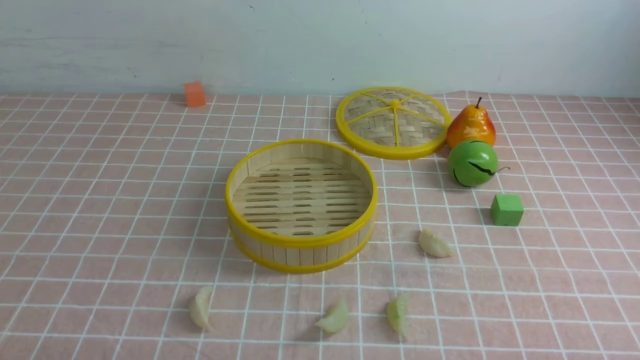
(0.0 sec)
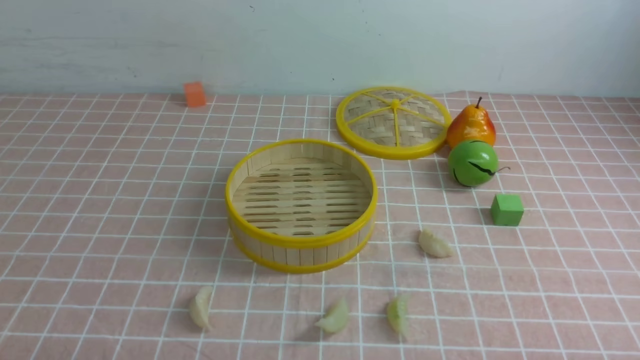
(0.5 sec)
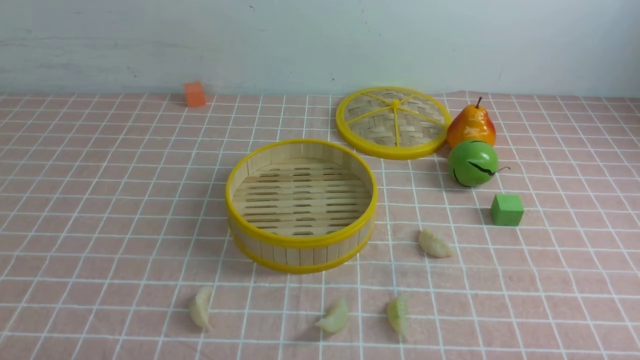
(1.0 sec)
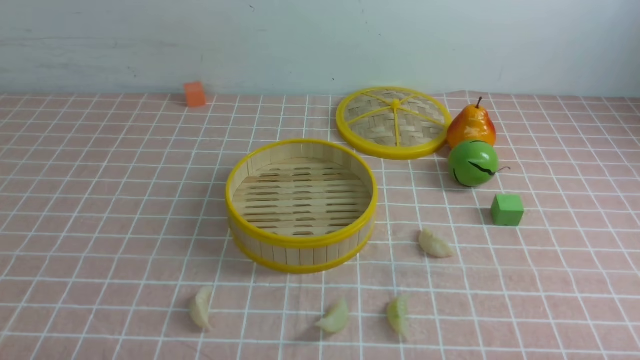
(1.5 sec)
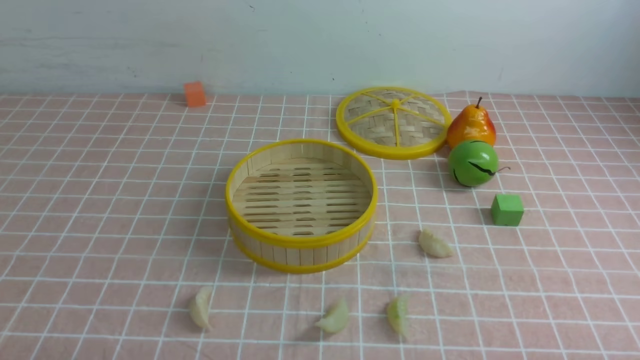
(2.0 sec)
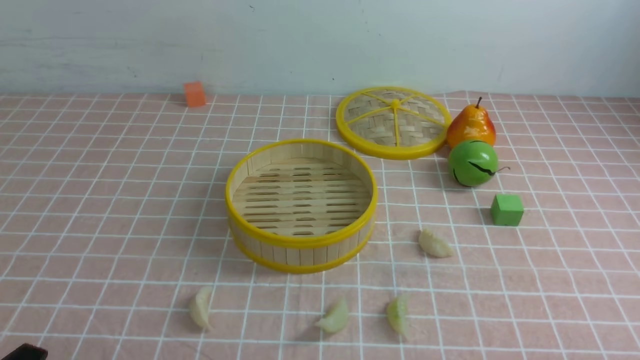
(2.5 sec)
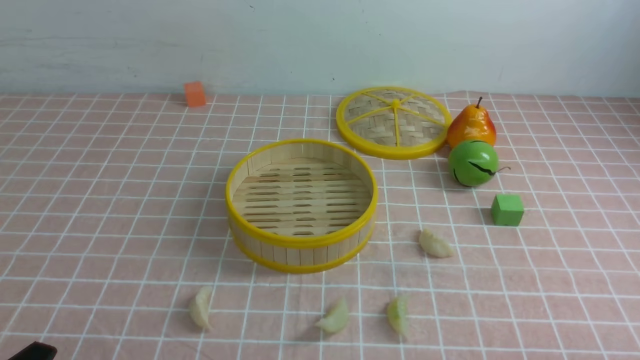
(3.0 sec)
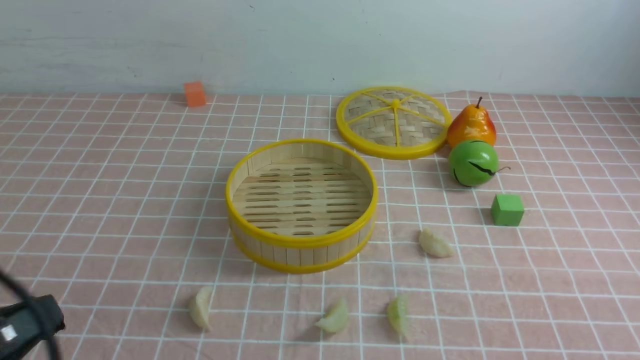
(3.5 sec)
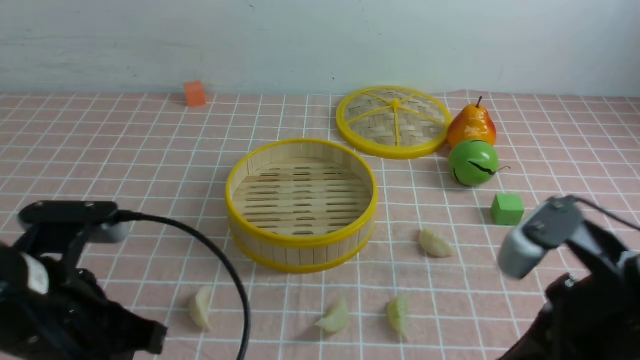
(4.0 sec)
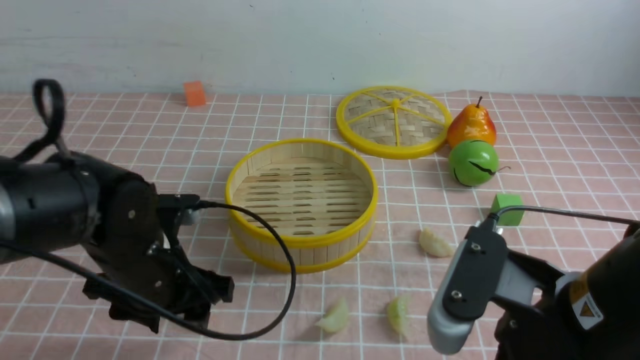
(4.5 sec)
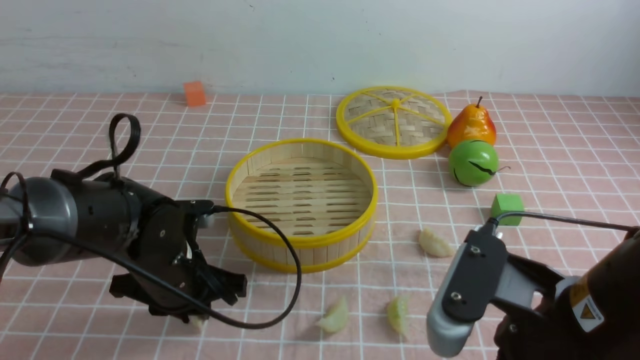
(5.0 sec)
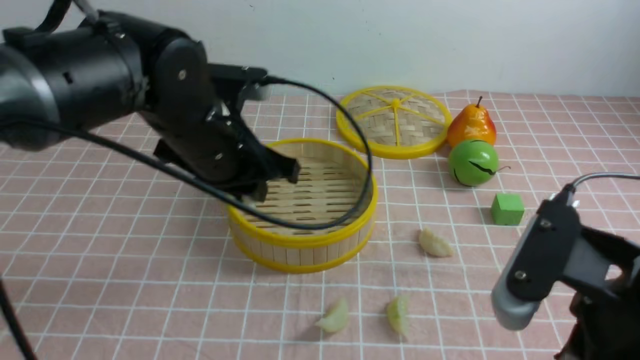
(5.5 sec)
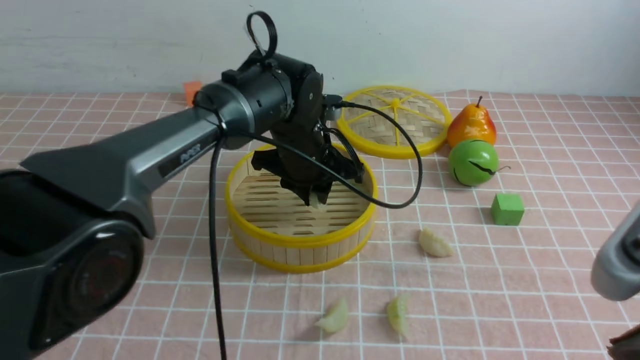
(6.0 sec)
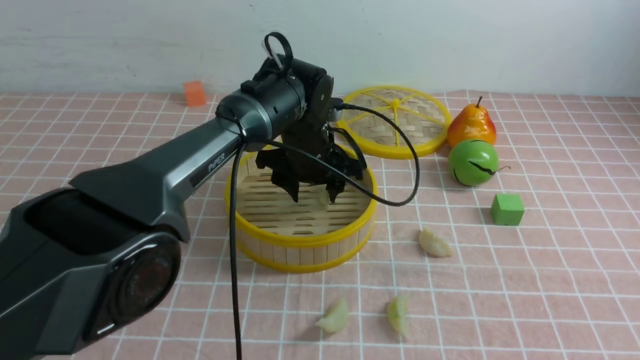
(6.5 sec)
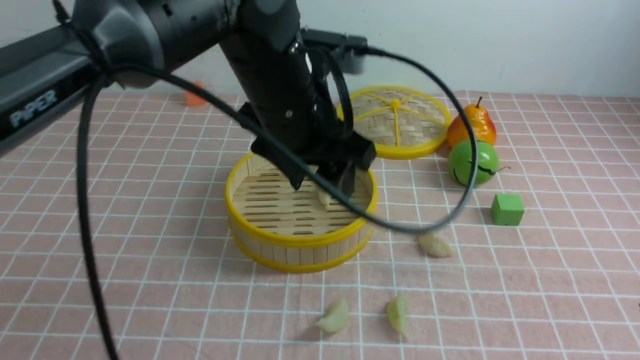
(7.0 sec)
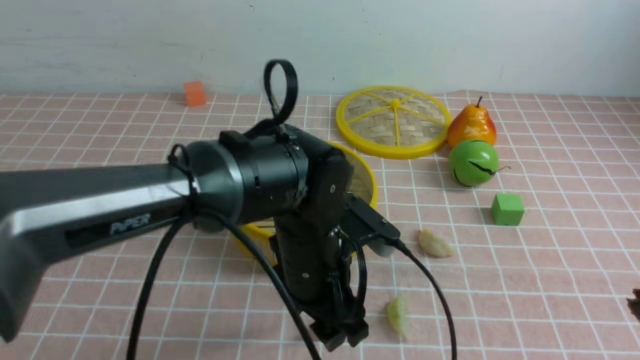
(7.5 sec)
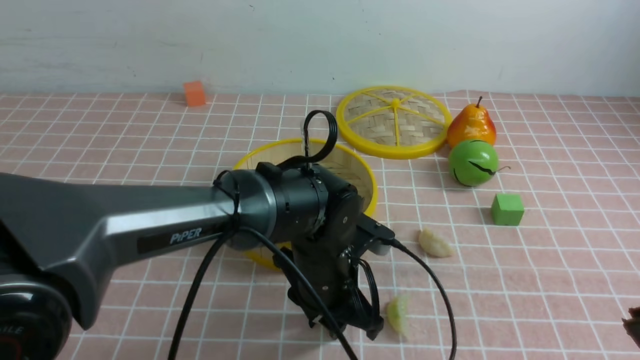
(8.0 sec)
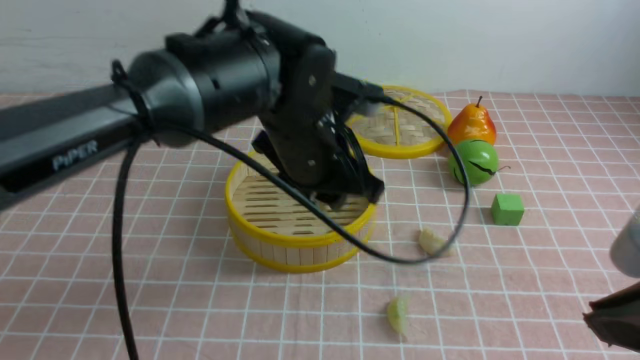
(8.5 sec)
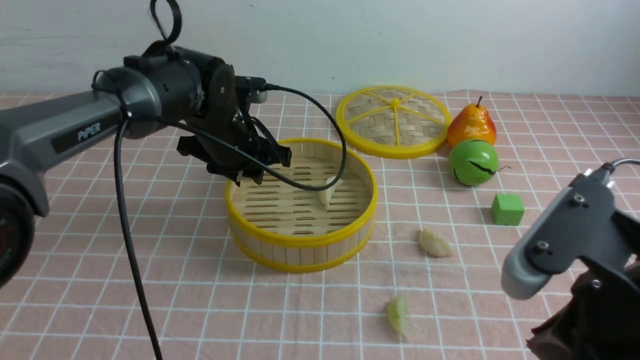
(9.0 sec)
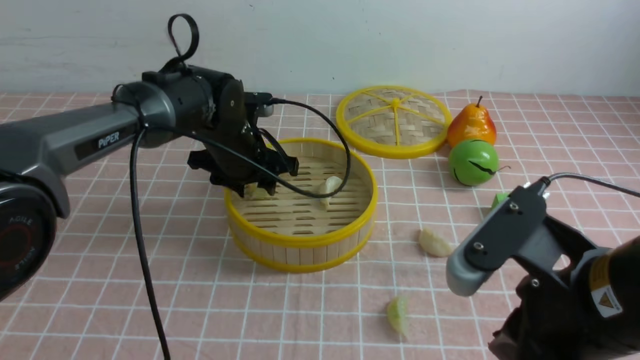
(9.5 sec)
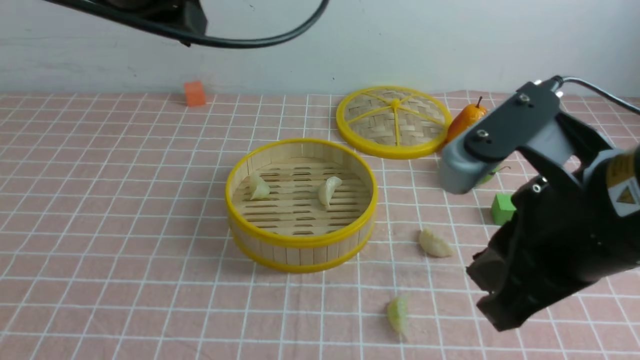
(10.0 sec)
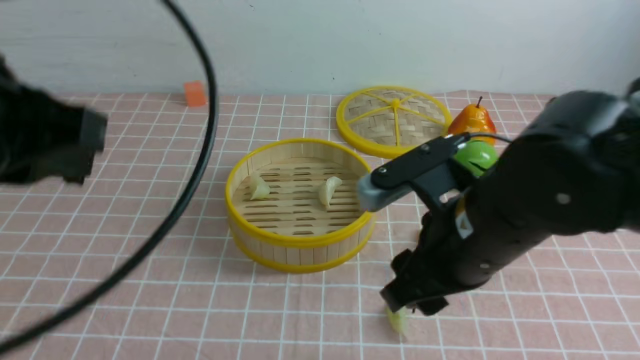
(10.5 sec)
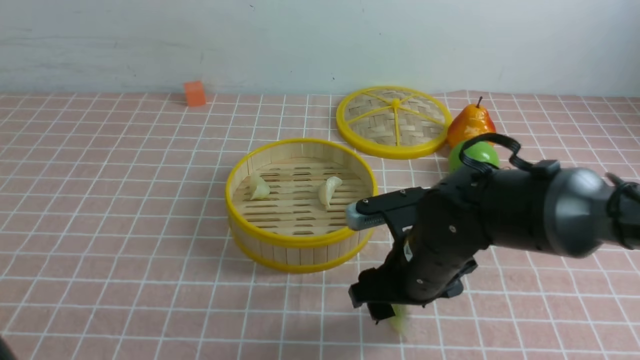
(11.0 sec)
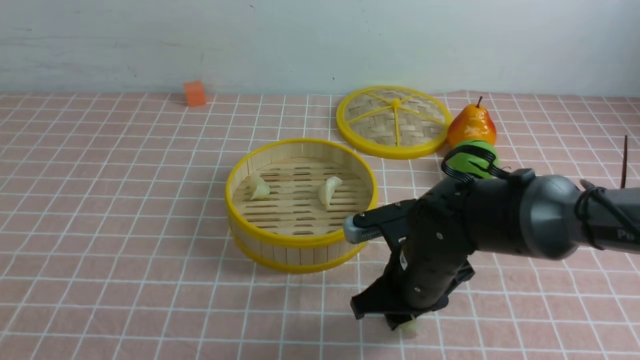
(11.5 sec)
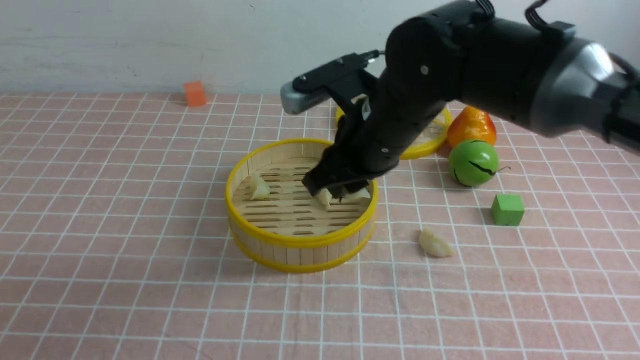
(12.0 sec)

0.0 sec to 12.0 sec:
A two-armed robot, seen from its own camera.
Task of the whole recording: put the dumplings into the steamer on the table with the pink tablecloth.
Step, 0.0 sec to 5.0 sec: use the left arm to grab a dumpling.
Step, 5.5 sec to 6.0 sec: use the left arm to put the dumpling into the steamer.
Step, 6.5 sec to 8.0 sec: use the left arm to grab a dumpling.
Step, 8.5 sec to 9.0 sec: use the left arm to put the dumpling into the steamer.
Step, 10.0 sec to 11.5 sec: use the right arm to grab a dumpling.
0.0 sec to 2.0 sec: The two grippers keep their place.
2.0 sec to 4.0 sec: The right gripper moves forward, upward and to the left, roughly 20 cm, and closes; the left gripper moves forward, upward and to the right, roughly 20 cm.
4.0 sec to 6.0 sec: The right gripper shifts approximately 10 cm upward and backward, while the left gripper is displaced forward and to the right by some 30 cm, and opens, then closes again.
6.0 sec to 8.0 sec: The left gripper shifts approximately 15 cm backward, and opens, then closes again.
8.0 sec to 10.0 sec: The left gripper goes up and down, some 30 cm each way, reversing 2 times, and closes up, while the right gripper moves to the left and forward, approximately 10 cm.
10.0 sec to 12.0 sec: The right gripper is displaced forward and to the left by roughly 20 cm, and opens and closes again. Meanwhile the left gripper is displaced backward, downward and to the left by some 30 cm.

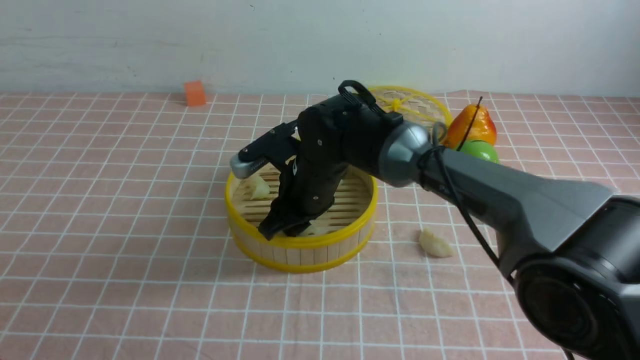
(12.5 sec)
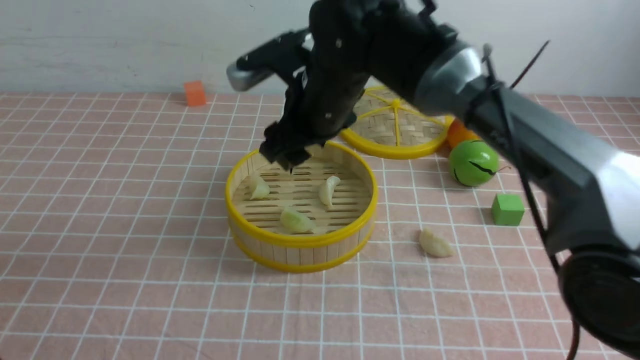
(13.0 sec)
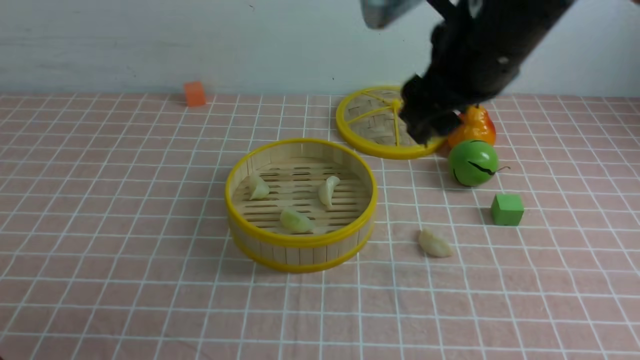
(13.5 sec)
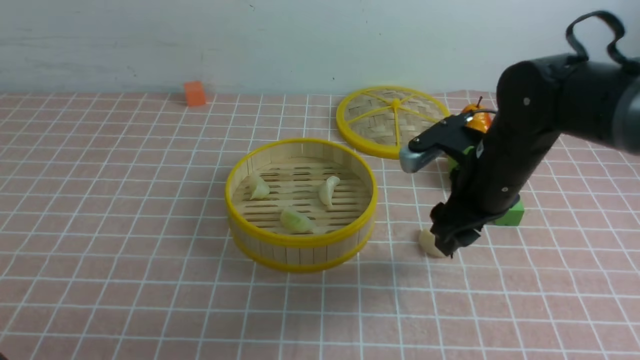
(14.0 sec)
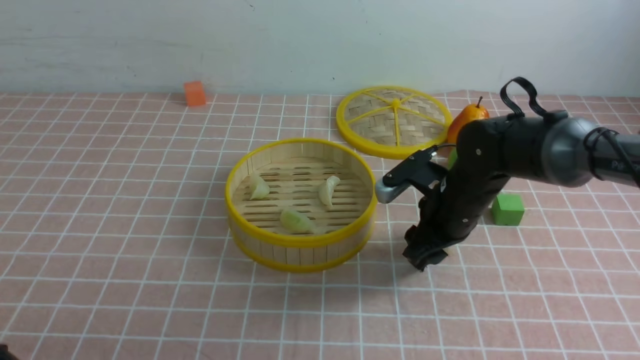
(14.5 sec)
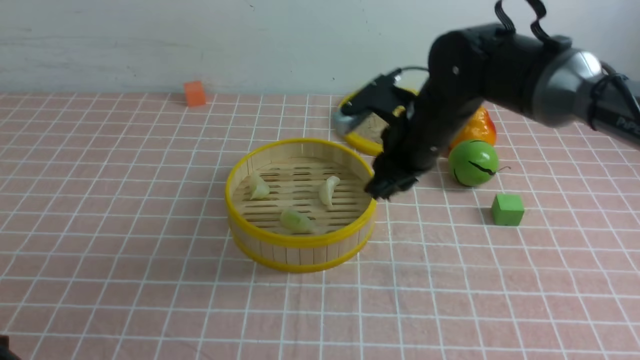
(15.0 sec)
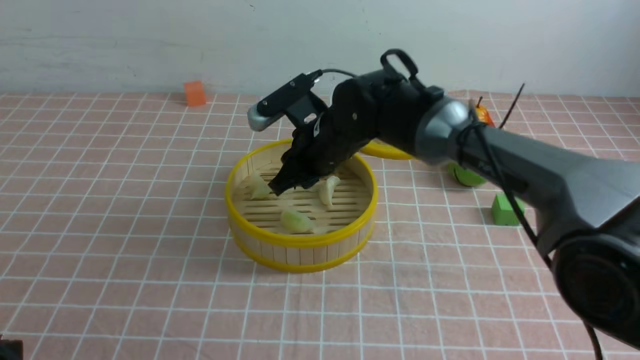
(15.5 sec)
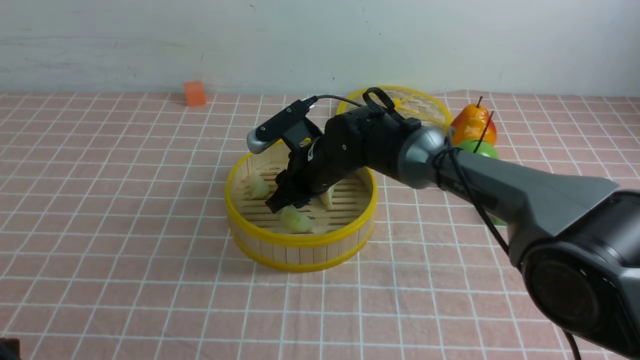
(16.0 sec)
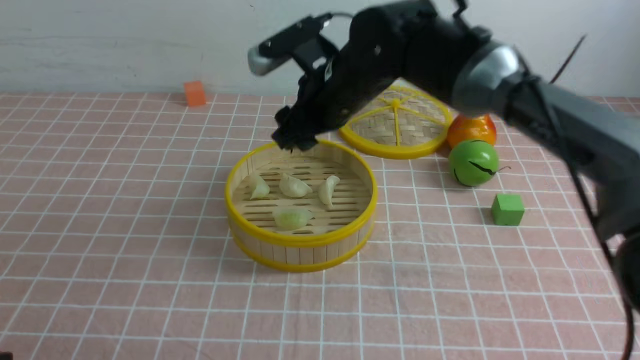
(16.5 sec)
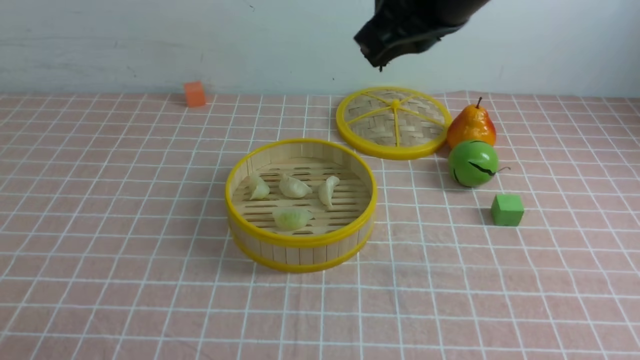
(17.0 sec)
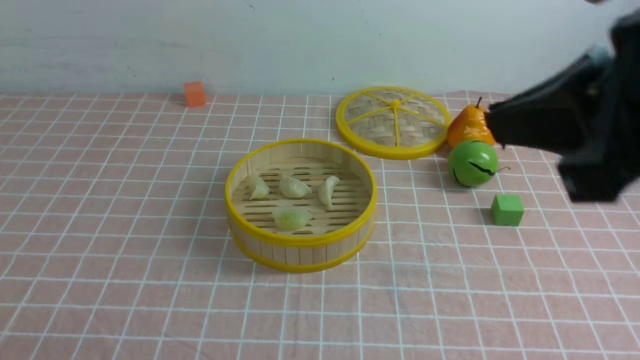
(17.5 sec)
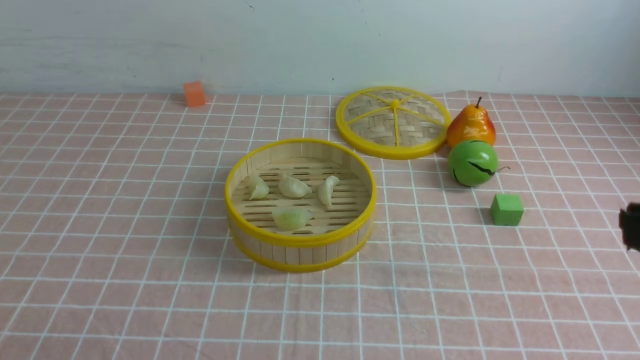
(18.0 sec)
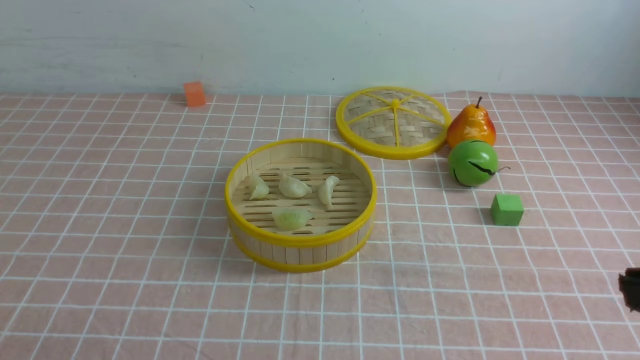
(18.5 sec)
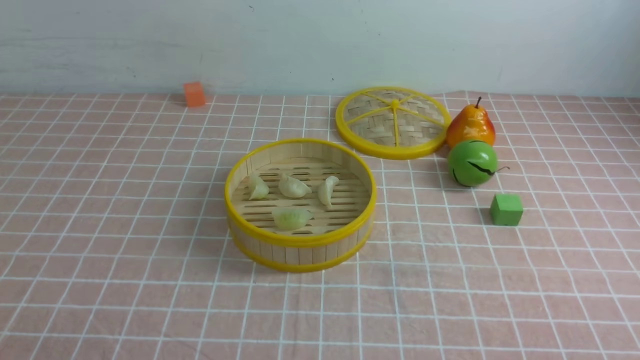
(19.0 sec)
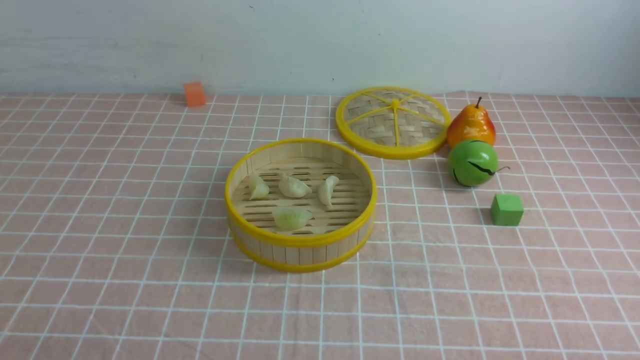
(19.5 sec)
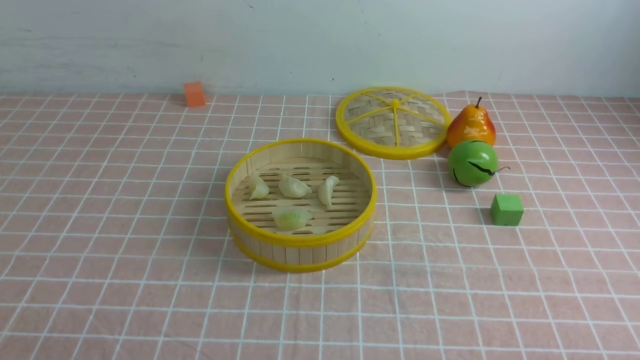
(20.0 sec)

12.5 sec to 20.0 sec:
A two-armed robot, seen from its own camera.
Task of the whole recording: put the dumplings into the steamer on the table with the pink tablecloth.
Step, 13.0 sec to 14.5 sec: use the right arm to grab a dumpling.
Step, 15.0 sec to 16.0 sec: use the right arm to put the dumpling into the steamer.
12.5 sec to 14.5 sec: The right gripper shifts about 15 cm to the right, and travels upward and back again, some 15 cm each way.
14.5 sec to 16.5 sec: The right gripper goes up and down, about 15 cm each way, reversing 2 times.
16.5 sec to 18.0 sec: The right gripper heads backward and to the right, covering about 40 cm, and closes up.
